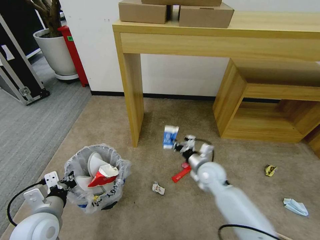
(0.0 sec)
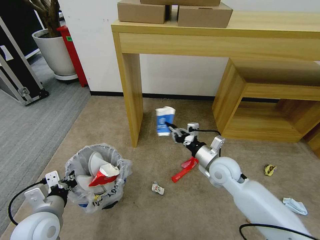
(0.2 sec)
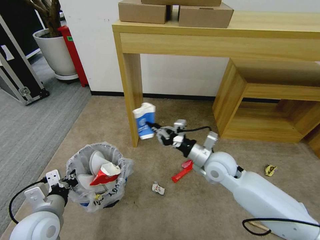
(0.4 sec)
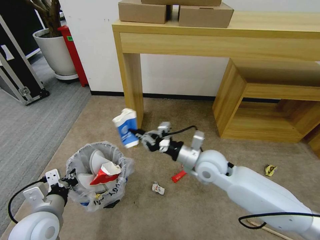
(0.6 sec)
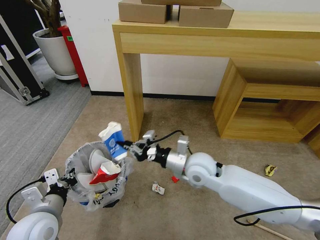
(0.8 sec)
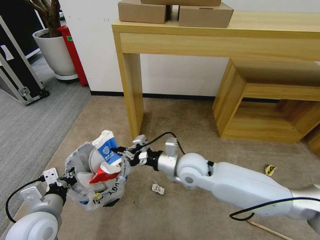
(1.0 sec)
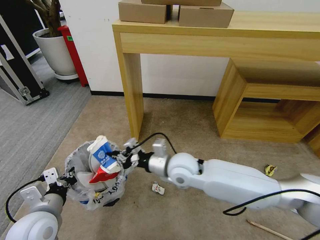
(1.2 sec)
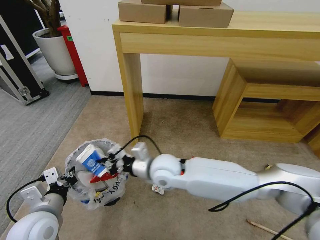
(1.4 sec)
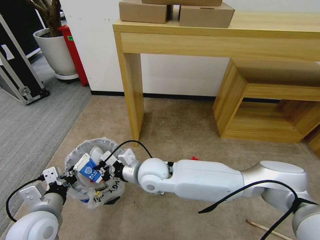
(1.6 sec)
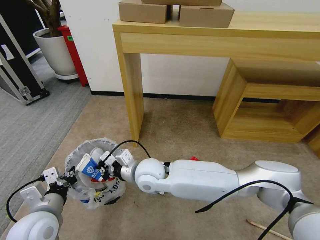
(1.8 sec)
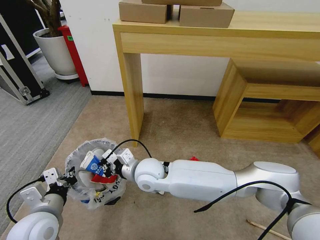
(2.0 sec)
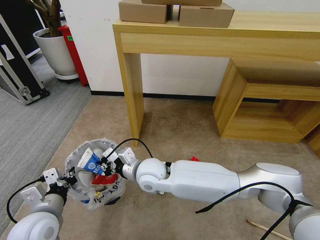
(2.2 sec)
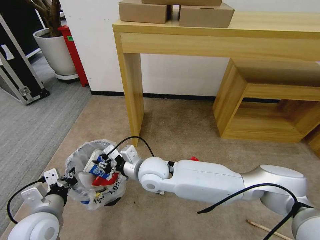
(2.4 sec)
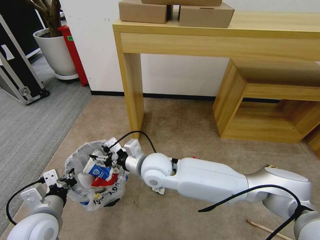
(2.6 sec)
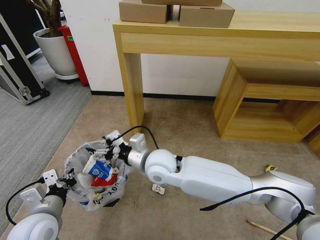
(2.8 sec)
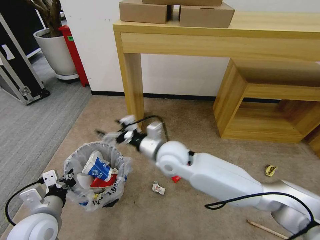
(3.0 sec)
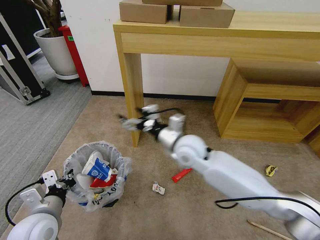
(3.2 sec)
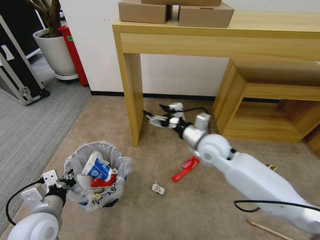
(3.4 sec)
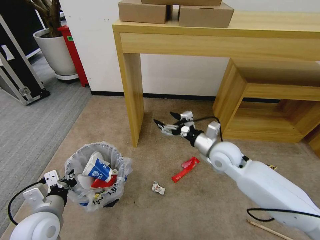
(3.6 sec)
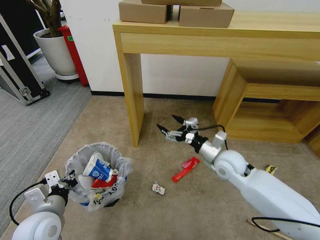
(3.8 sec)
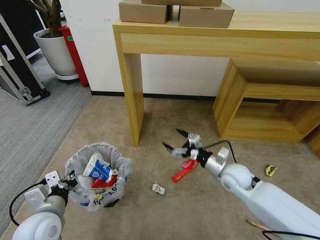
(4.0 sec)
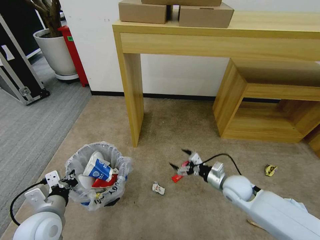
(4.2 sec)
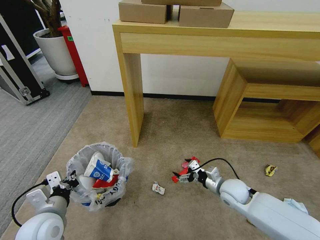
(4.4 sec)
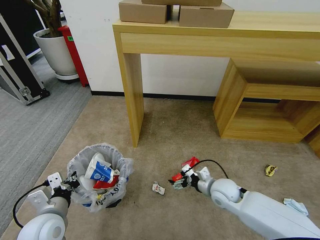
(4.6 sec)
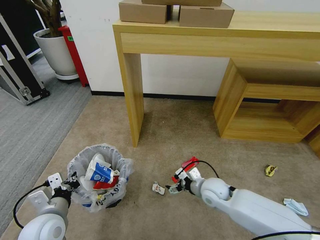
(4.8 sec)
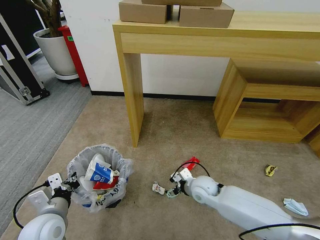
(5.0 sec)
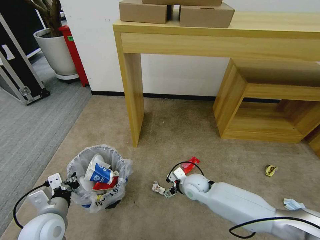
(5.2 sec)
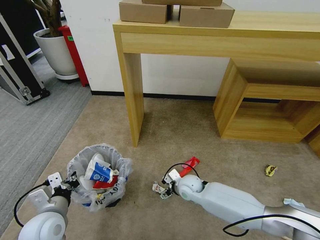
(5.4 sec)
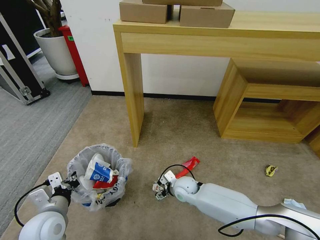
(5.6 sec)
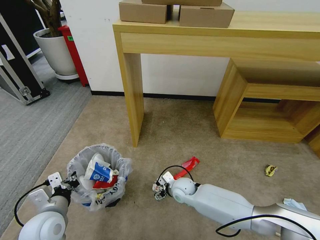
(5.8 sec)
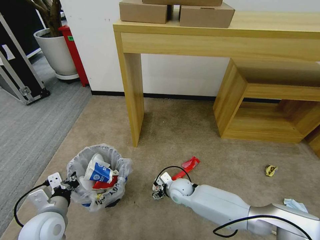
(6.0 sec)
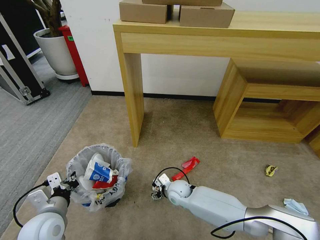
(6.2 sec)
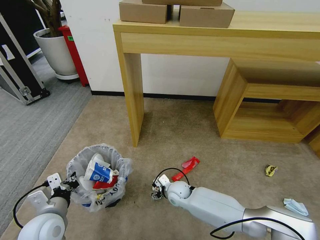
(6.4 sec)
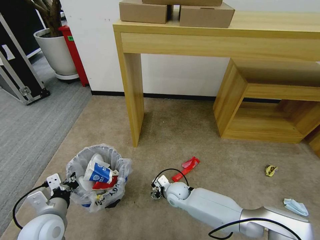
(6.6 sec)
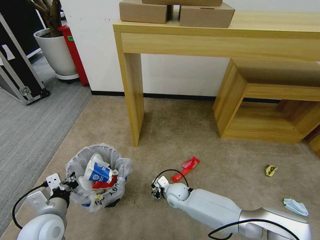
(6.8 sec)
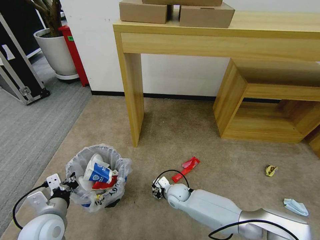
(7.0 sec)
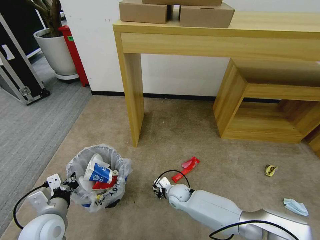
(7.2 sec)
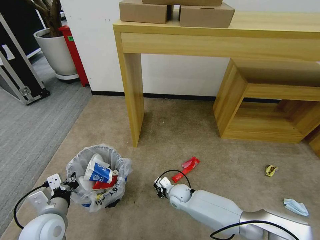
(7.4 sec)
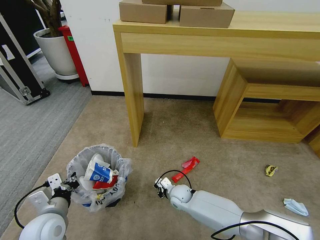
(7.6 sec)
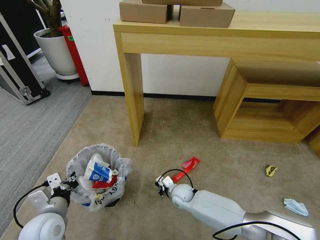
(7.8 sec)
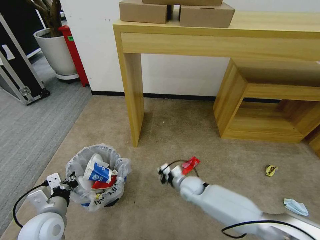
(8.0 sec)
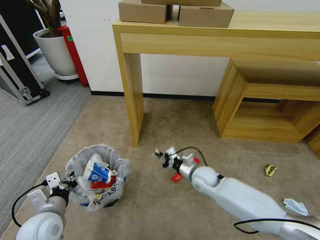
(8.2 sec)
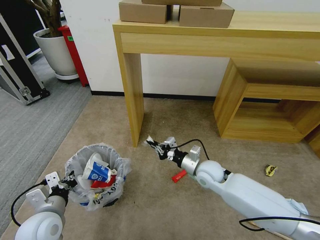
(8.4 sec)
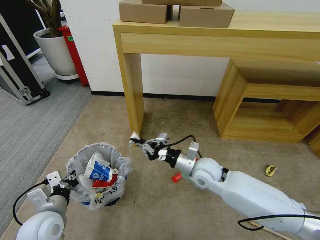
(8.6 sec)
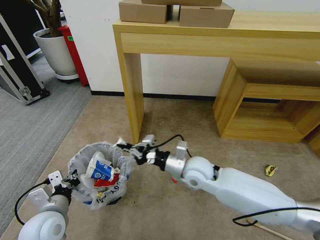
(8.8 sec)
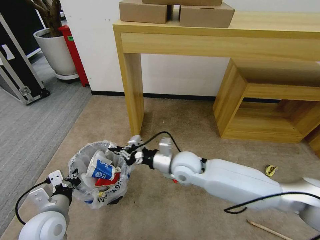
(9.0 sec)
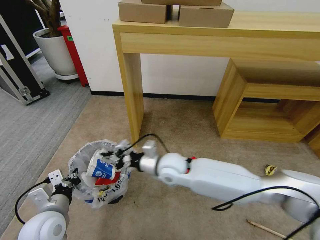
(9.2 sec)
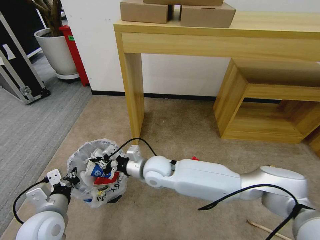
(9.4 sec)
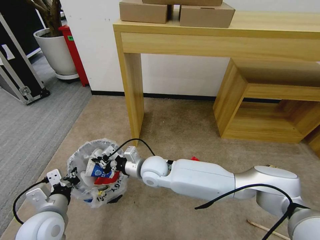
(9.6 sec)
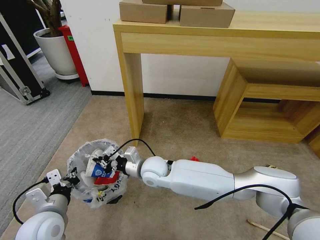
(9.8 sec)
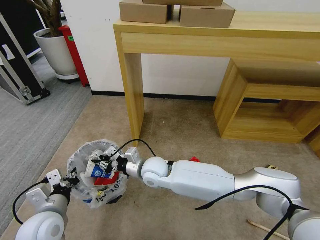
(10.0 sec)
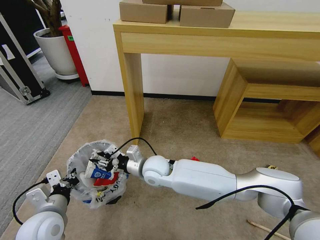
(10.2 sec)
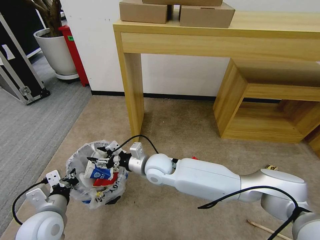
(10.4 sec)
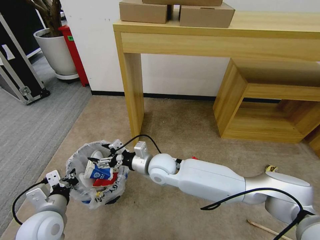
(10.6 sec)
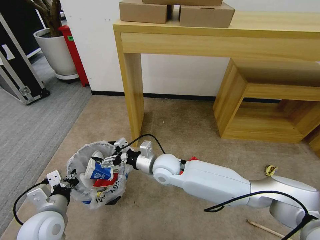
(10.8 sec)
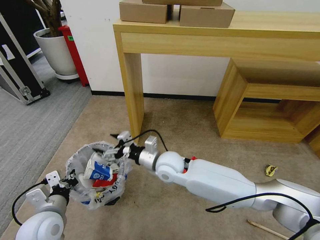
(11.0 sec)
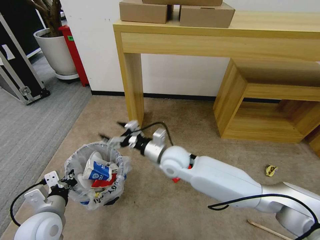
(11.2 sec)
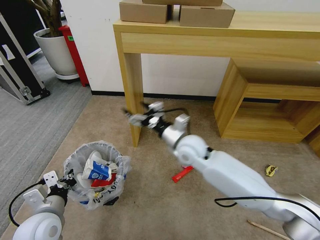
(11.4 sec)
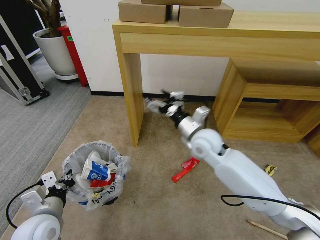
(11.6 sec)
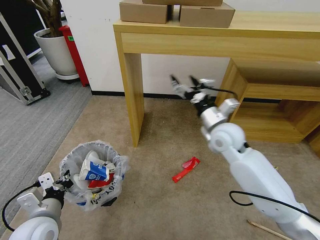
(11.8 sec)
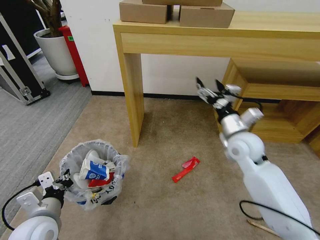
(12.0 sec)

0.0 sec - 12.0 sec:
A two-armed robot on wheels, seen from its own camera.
Task of the whole recording: Pick up the trash bin and place the garbage on the floor into it.
0.0 sec - 1.6 sec: The right gripper travels to the left by about 20 cm.
1.6 sec - 3.0 sec: The right gripper heads to the right, covering some 5 cm, and opens up.
3.0 sec - 4.4 sec: The right gripper moves to the right and downward, roughly 30 cm.
4.4 sec - 6.0 sec: The right gripper shifts approximately 20 cm to the left.
6.0 sec - 7.6 sec: The right gripper closes.
7.6 sec - 9.0 sec: The right gripper moves upward, approximately 25 cm.
9.0 sec - 10.4 sec: The right gripper heads to the left, covering some 10 cm, and opens up.
10.4 sec - 12.0 sec: The right gripper shifts about 25 cm to the right, and opens its fingers.

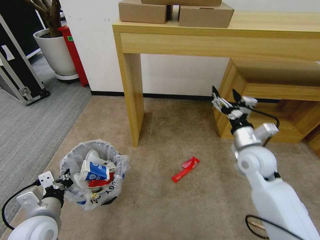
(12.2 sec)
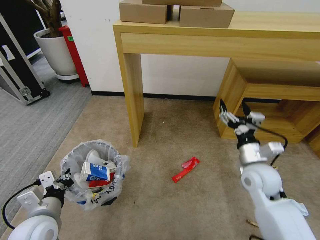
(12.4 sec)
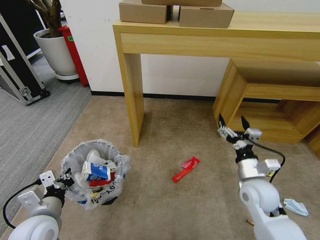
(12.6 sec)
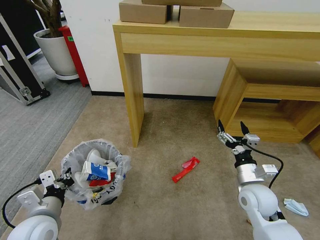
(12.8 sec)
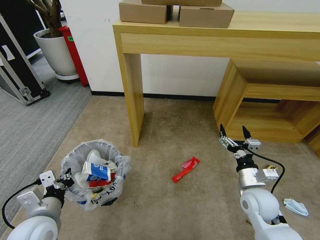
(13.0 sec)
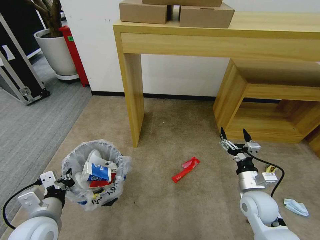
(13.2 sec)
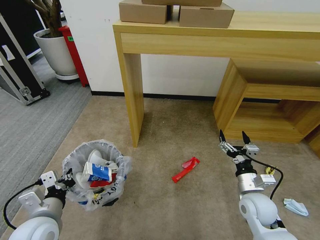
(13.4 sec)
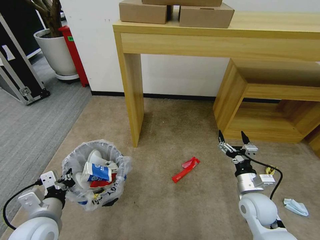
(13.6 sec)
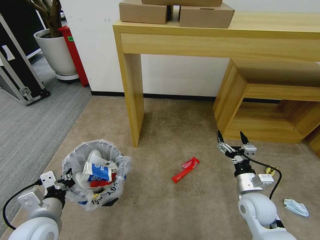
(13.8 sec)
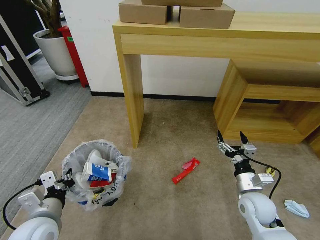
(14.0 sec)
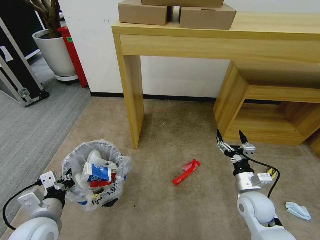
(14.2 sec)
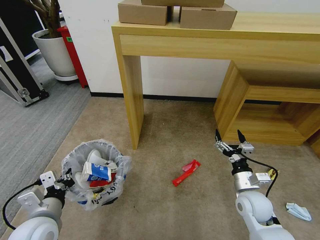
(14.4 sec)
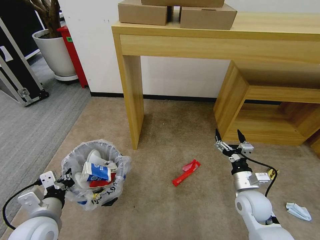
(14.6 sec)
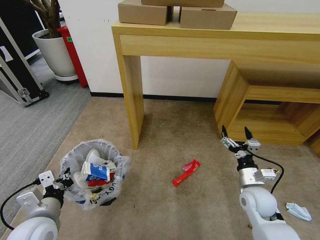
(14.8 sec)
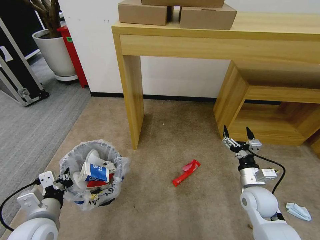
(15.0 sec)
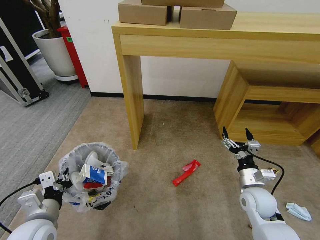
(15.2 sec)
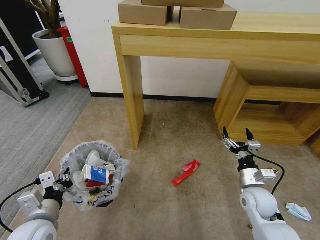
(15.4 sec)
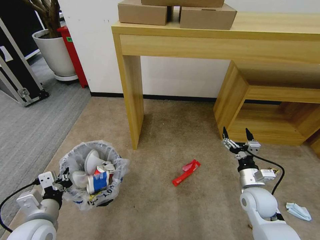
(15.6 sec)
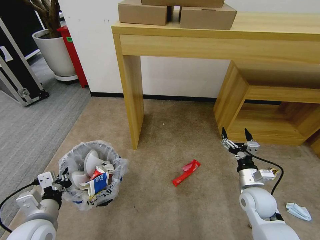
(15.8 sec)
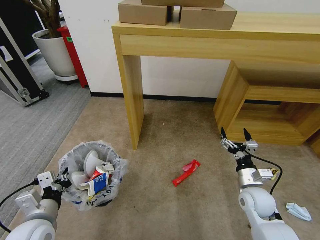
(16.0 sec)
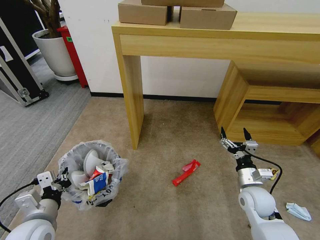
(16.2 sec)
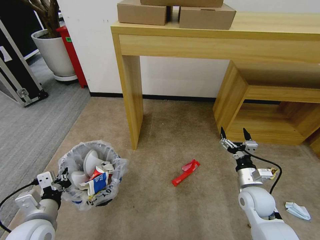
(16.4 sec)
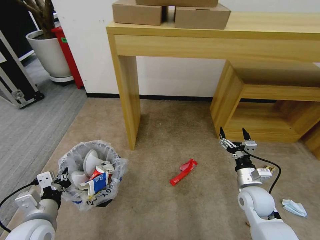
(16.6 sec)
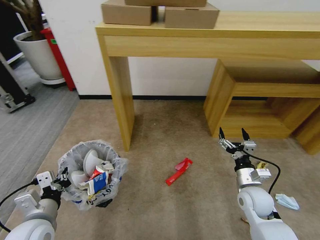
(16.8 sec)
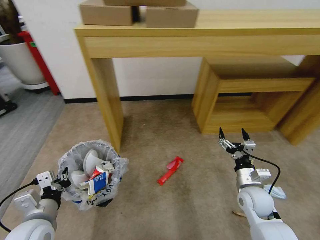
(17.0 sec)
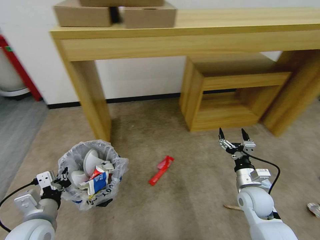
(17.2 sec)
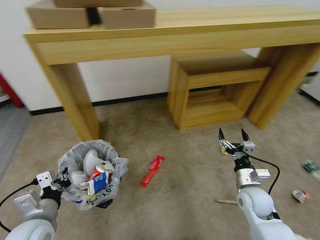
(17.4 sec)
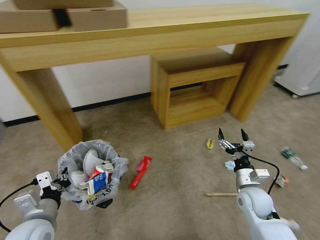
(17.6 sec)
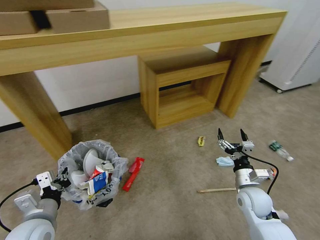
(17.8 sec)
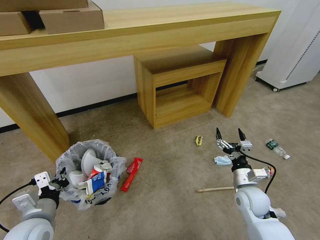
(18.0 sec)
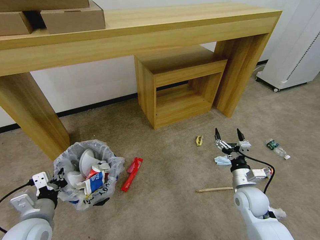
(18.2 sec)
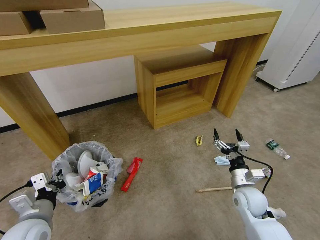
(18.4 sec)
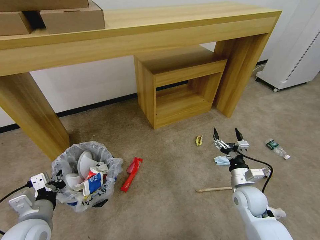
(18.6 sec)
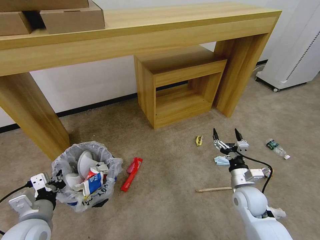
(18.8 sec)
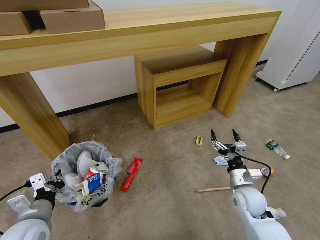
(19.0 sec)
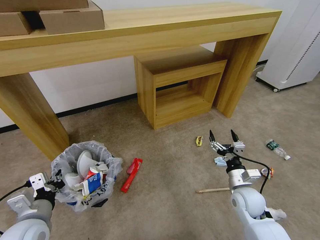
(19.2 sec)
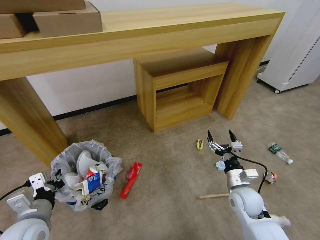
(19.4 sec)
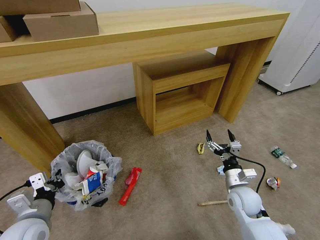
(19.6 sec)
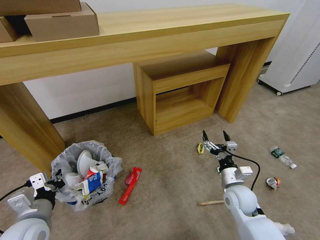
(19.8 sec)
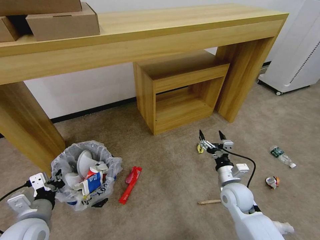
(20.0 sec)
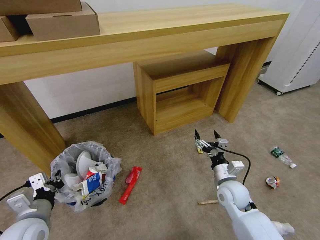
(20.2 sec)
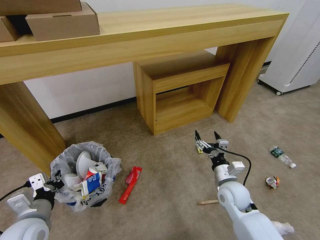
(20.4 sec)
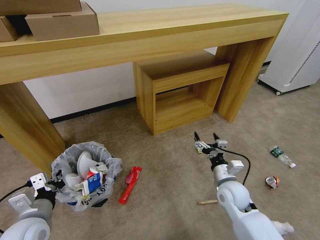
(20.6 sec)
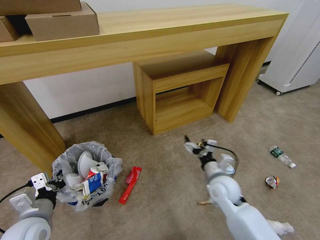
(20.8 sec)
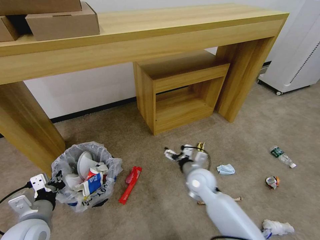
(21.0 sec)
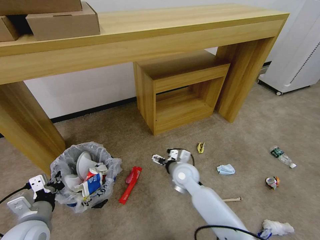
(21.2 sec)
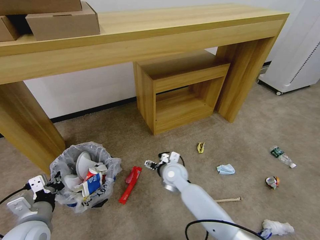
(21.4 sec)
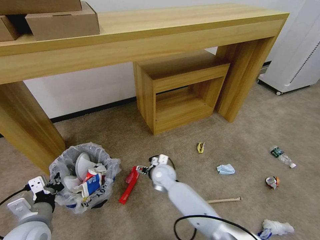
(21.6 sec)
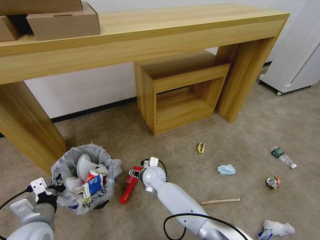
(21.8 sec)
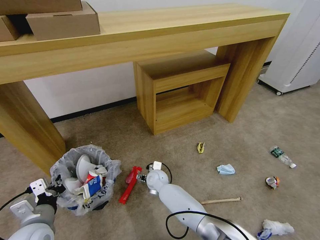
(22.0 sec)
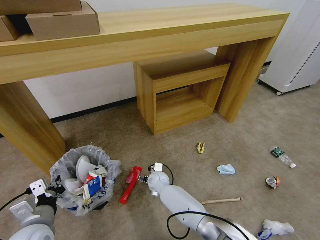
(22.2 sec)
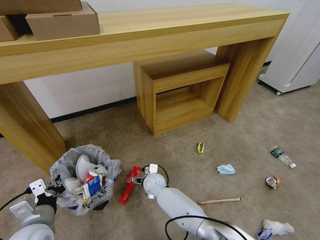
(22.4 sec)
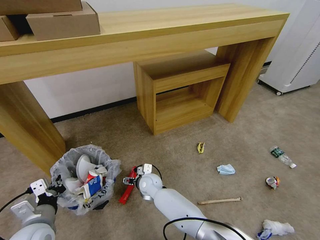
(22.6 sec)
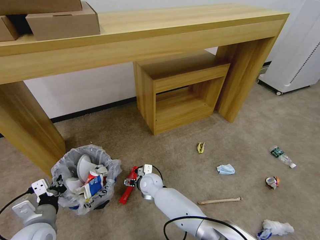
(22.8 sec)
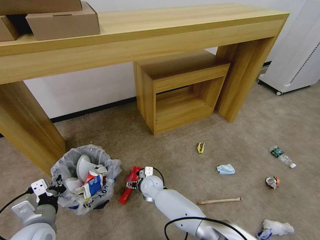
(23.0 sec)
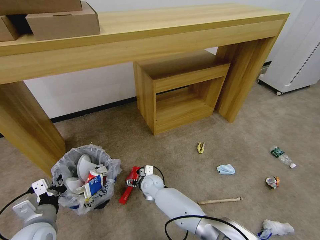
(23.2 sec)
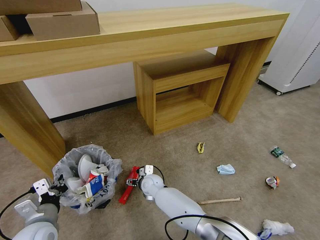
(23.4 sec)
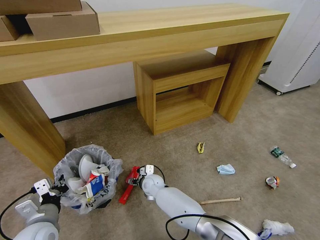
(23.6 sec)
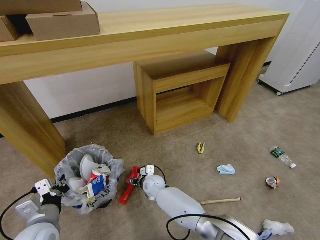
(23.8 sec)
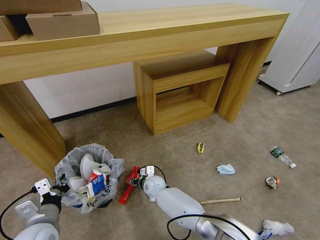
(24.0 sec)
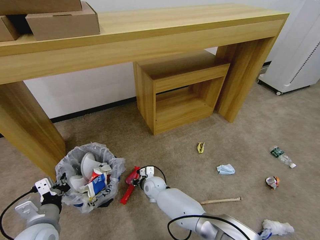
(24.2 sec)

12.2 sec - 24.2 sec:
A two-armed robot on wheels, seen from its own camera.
Task of the whole recording: Pick up the trash bin and place the garbage on the floor into it.
12.2 sec - 13.8 sec: The right gripper moves downward and backward, roughly 15 cm.
13.8 sec - 15.2 sec: The grippers move only a little.
15.2 sec - 16.6 sec: Both grippers stay about where they are.
19.8 sec - 21.2 sec: The right gripper moves to the left and forward, roughly 20 cm.
21.2 sec - 22.6 sec: The right gripper shifts about 15 cm to the left and downward.
22.6 sec - 24.2 sec: The right gripper is displaced downward by about 5 cm, and closes.
